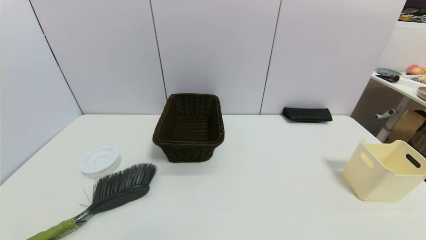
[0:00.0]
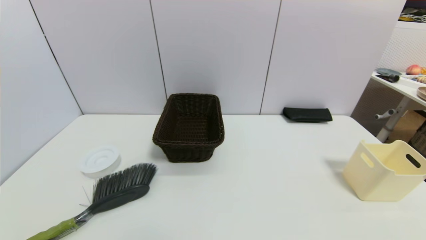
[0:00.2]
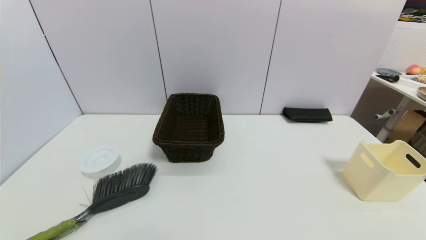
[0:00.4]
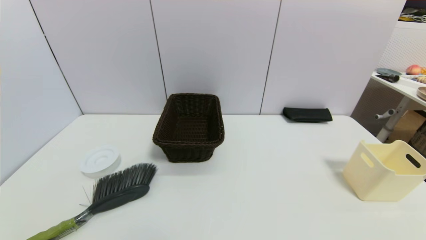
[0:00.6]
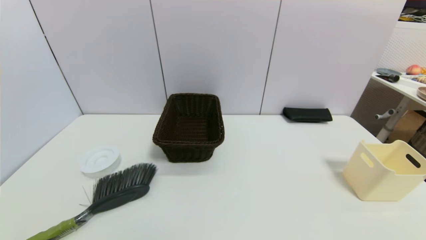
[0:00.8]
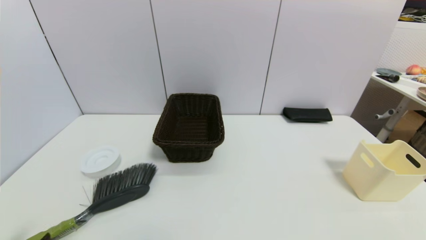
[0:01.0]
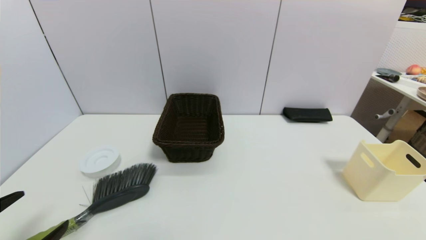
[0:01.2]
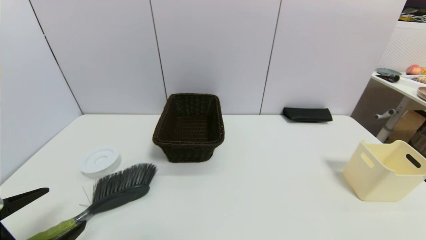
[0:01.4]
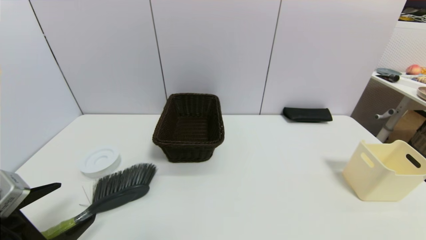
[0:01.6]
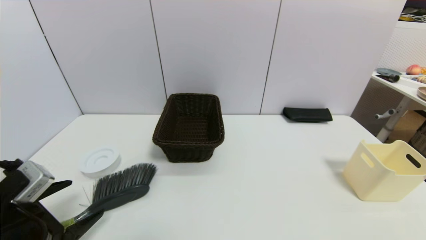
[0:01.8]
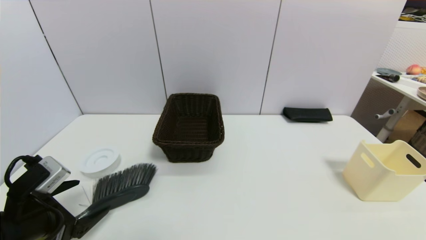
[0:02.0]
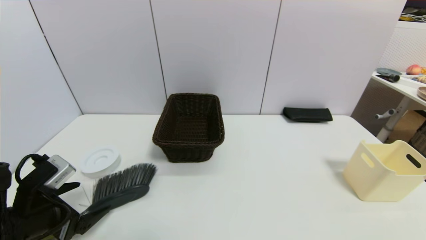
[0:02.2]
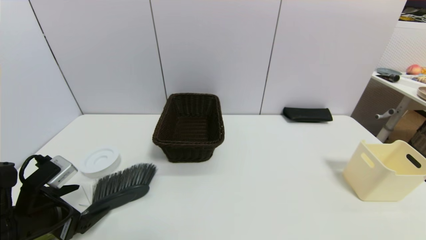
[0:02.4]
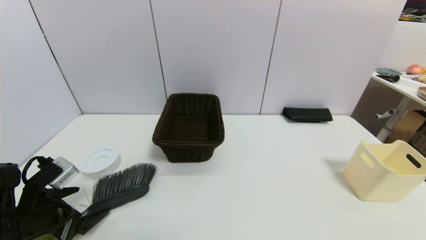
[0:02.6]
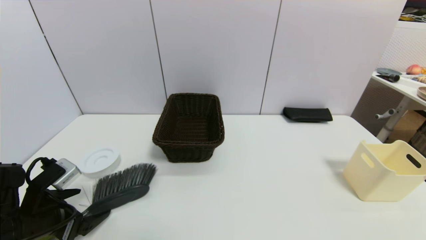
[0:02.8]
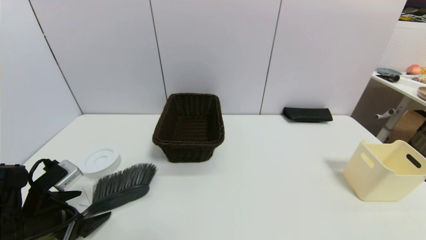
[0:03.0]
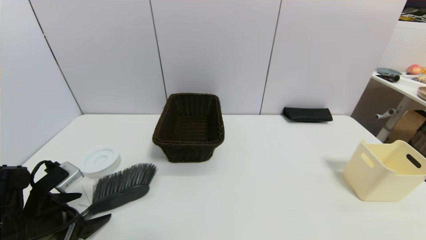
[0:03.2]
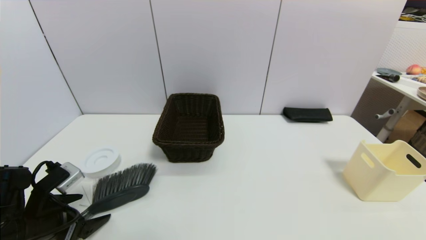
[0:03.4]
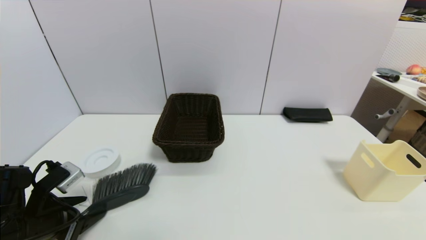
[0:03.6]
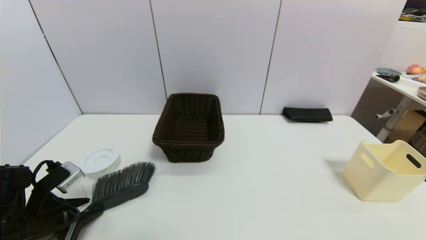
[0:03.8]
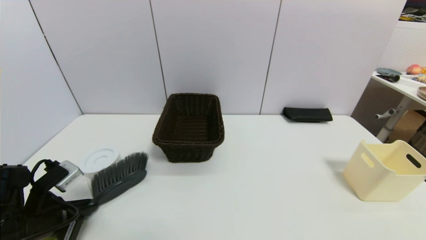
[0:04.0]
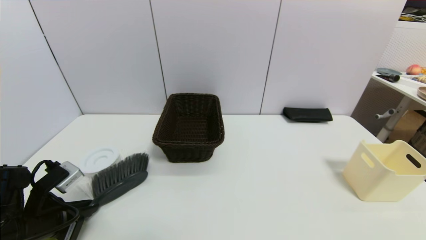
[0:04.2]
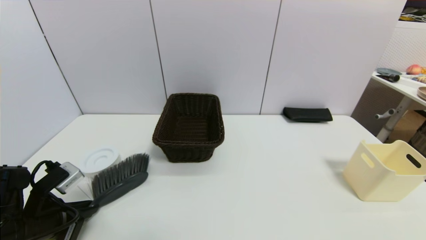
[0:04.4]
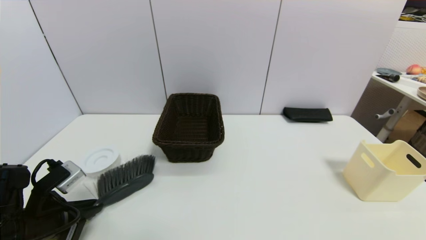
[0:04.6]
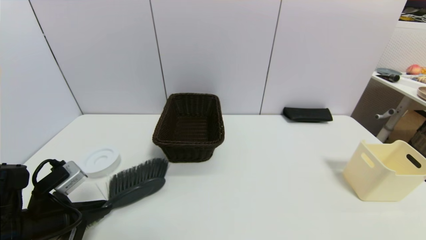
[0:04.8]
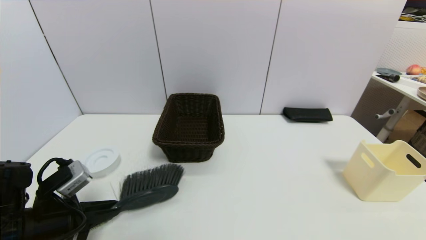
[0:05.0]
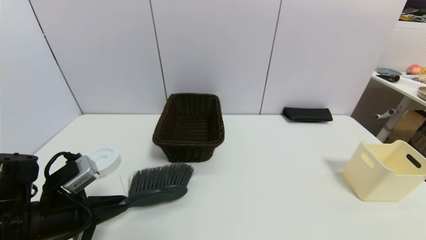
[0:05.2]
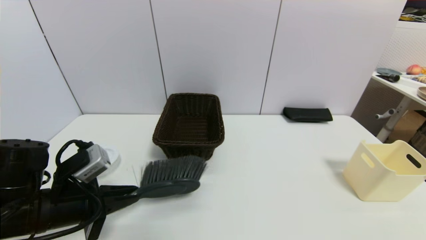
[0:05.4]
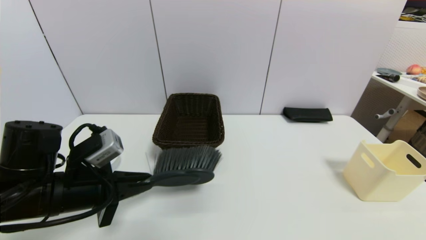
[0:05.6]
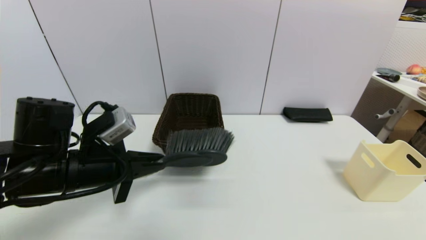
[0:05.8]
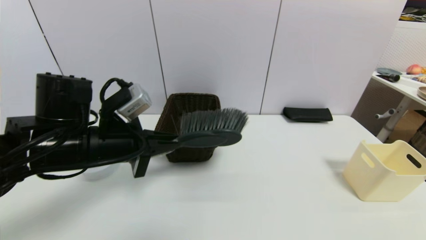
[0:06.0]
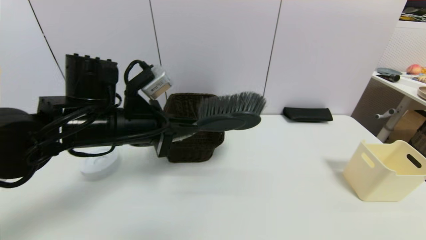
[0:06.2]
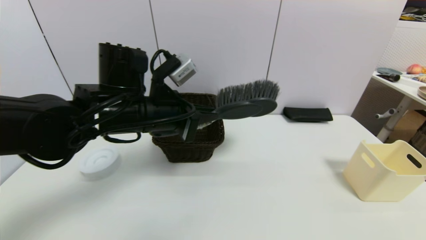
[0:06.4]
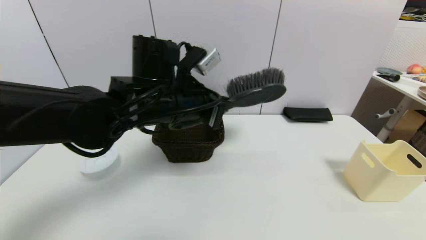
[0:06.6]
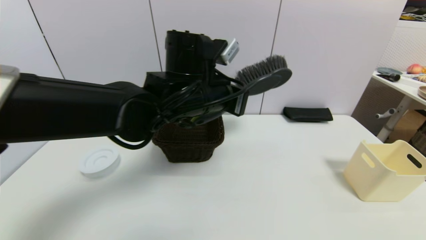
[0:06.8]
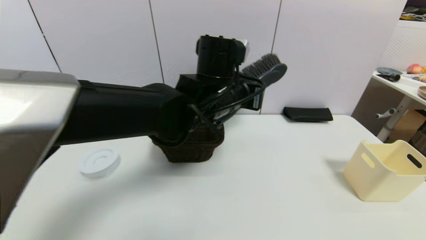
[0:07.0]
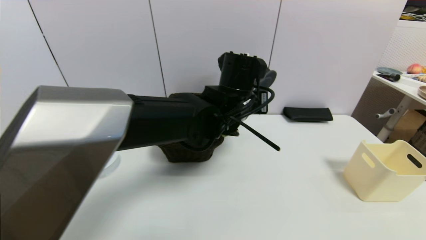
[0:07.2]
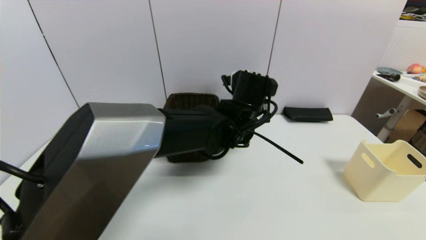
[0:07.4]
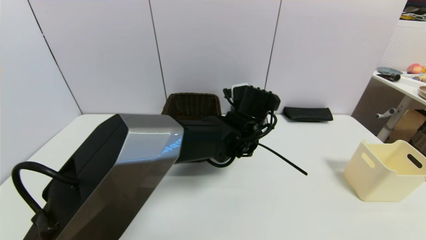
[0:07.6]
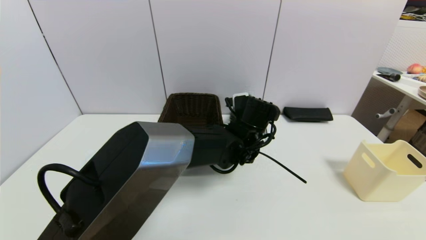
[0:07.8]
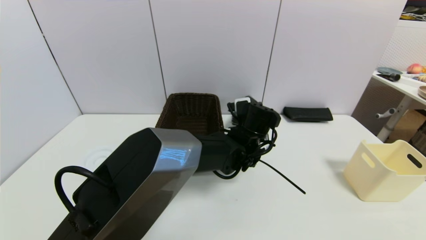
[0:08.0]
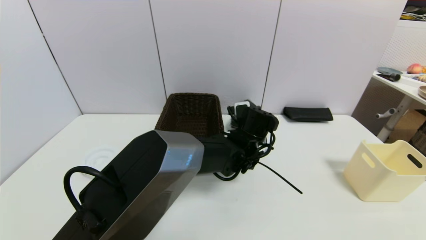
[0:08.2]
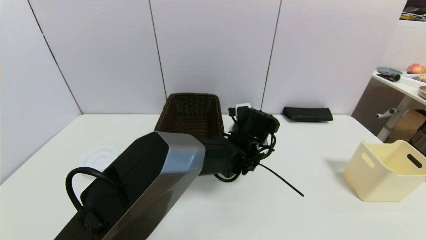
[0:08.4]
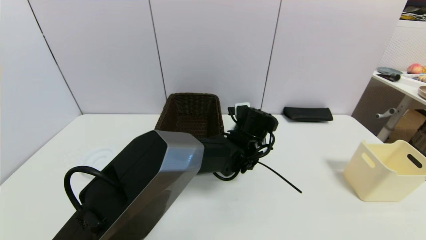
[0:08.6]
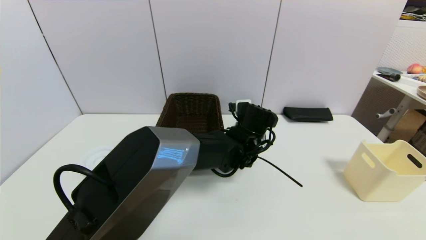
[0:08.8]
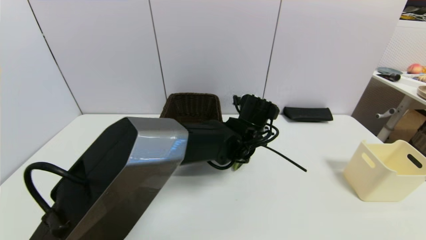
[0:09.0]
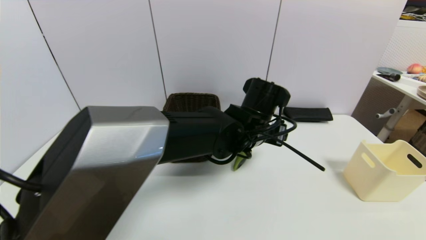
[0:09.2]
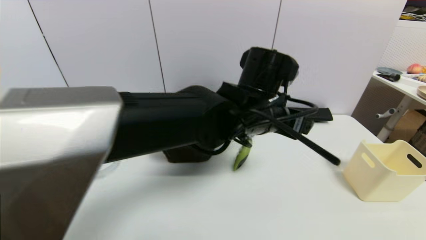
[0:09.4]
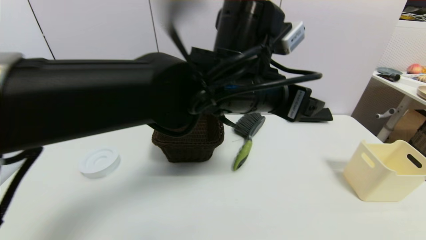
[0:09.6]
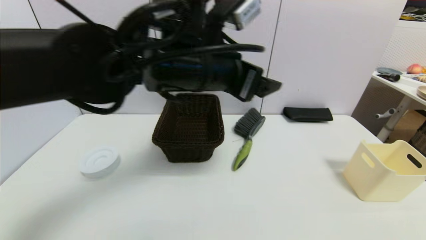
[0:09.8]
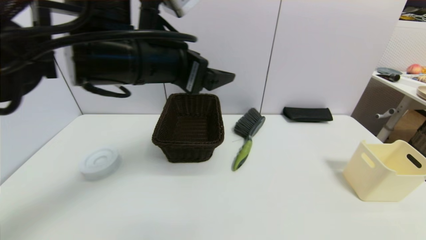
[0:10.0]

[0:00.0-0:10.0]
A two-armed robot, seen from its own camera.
Task of the whole recording: put the brush in the designated position.
Step, 0:00.0 to 0:03.8: Grasp the brush with left gripper.
Step, 0:04.2 to 0:08.8: Place the brush on the table with left gripper.
0:00.0 to 0:01.4: The left gripper moves forward and upward, some 10 cm.
0:01.4 to 0:02.8: The left gripper goes about 10 cm forward.
0:02.8 to 0:04.2: The left gripper closes its fingers.
0:04.2 to 0:05.8: The left gripper is displaced to the right and upward by approximately 10 cm.
0:05.8 to 0:07.2: The left gripper is displaced to the right and forward by some 25 cm.
0:07.2 to 0:08.6: The left gripper moves downward, approximately 10 cm, and opens up.
0:08.6 to 0:10.0: The left gripper shifts some 30 cm upward, to the left and backward, and opens its fingers.

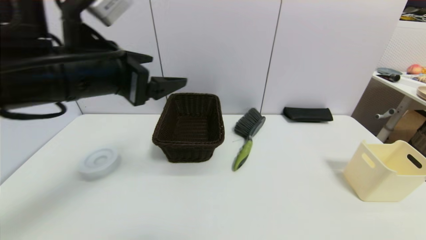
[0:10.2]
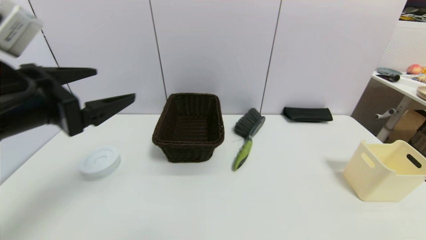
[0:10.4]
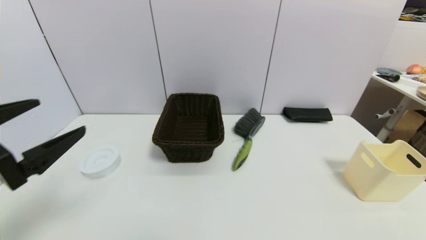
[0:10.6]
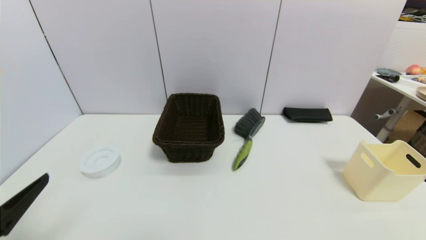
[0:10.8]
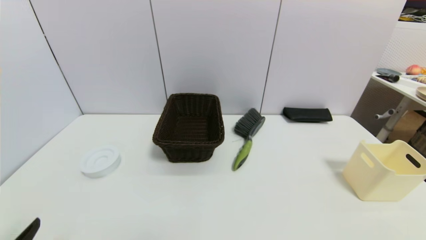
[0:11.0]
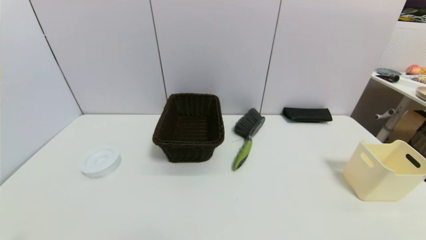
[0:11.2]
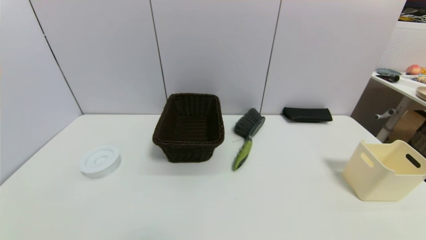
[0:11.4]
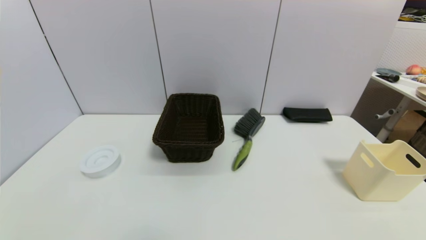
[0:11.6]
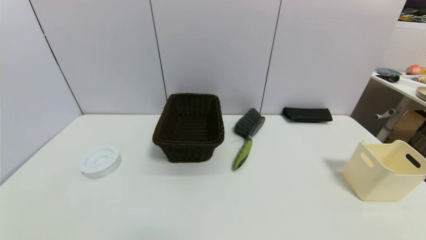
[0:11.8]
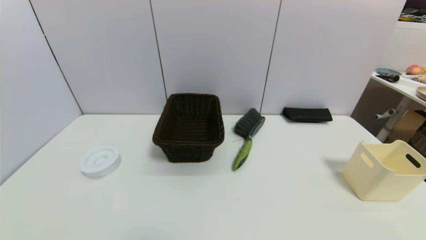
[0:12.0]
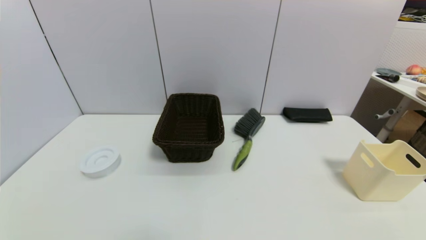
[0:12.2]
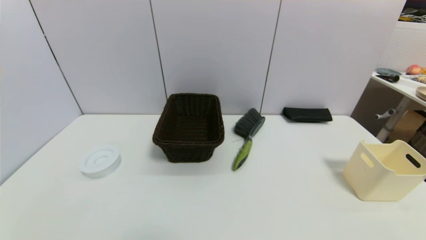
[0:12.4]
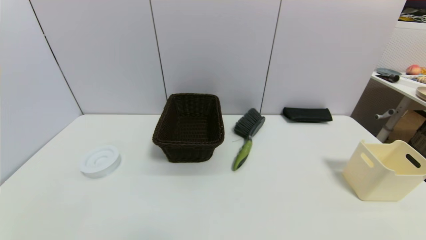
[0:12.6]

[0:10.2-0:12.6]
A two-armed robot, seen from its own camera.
Task of the whole recording: put the brush in the designated position.
0:10.2 to 0:11.4: The left gripper moves downward, backward and to the left, approximately 35 cm.
